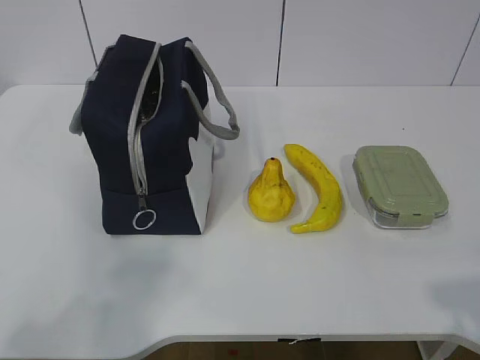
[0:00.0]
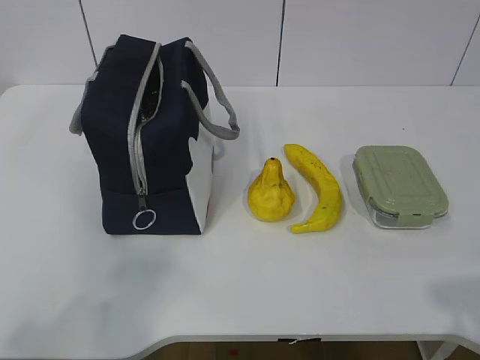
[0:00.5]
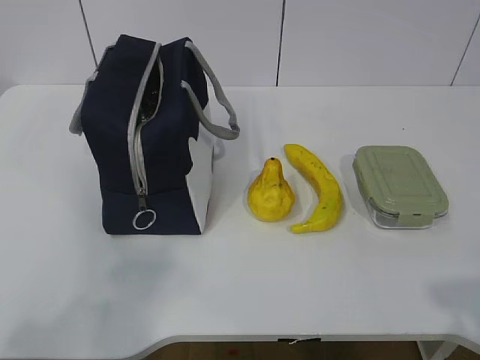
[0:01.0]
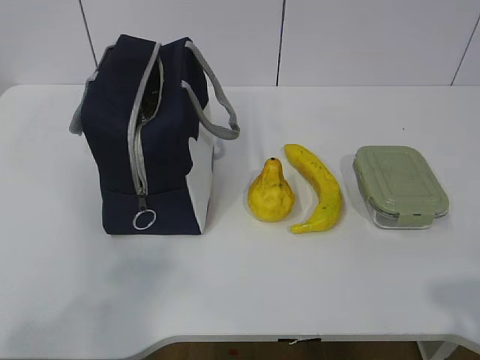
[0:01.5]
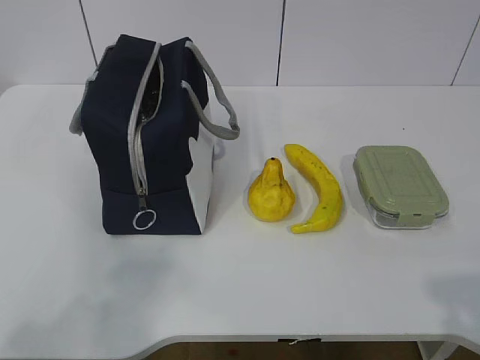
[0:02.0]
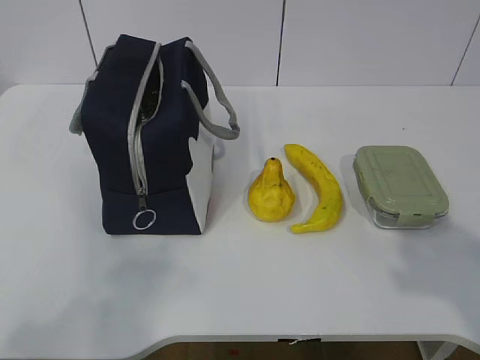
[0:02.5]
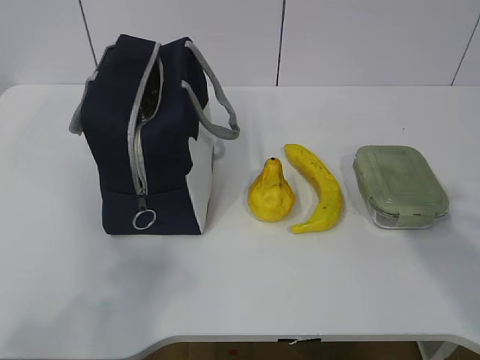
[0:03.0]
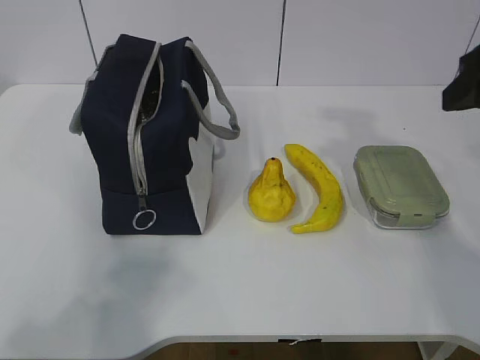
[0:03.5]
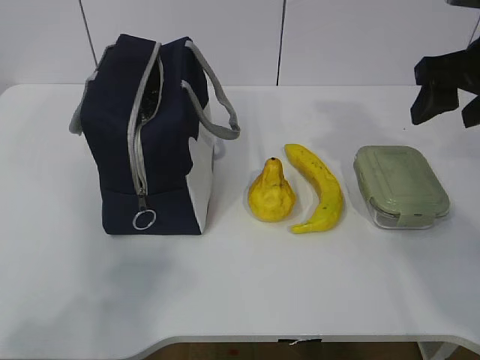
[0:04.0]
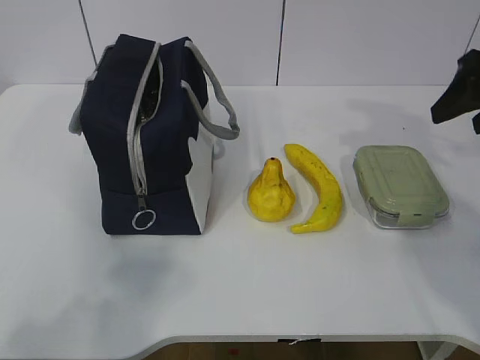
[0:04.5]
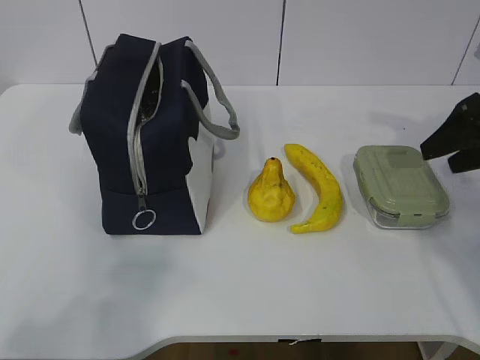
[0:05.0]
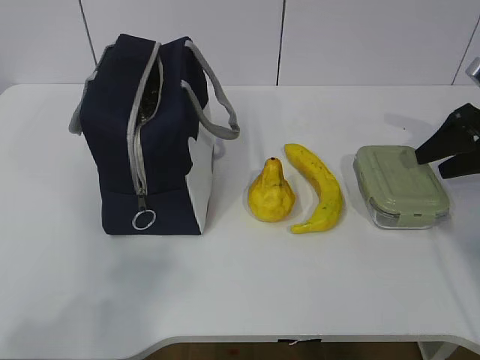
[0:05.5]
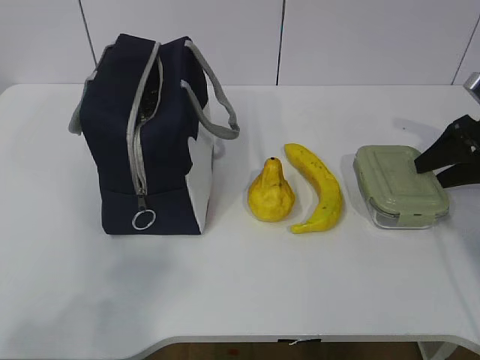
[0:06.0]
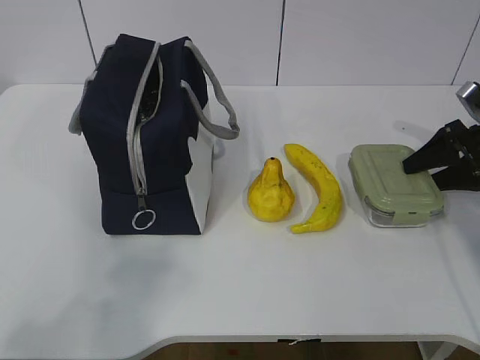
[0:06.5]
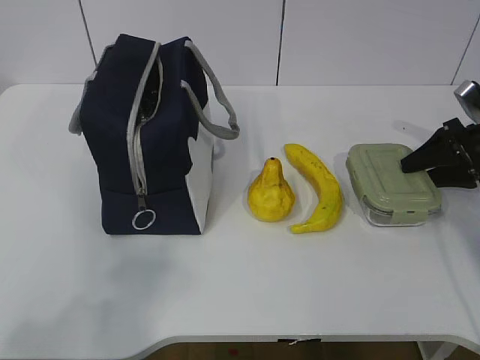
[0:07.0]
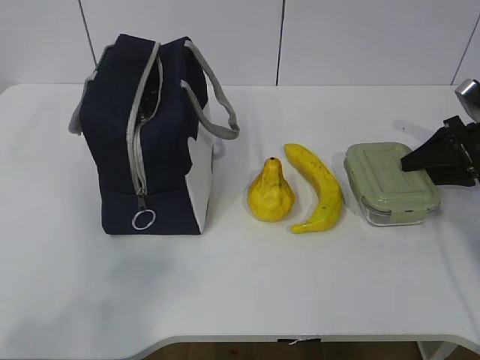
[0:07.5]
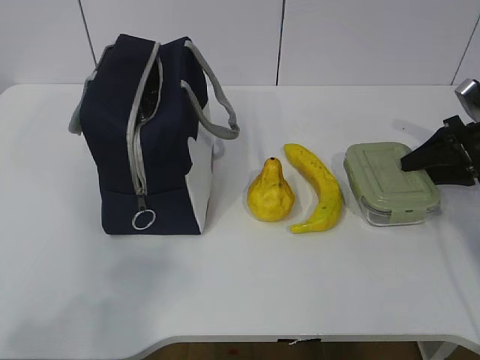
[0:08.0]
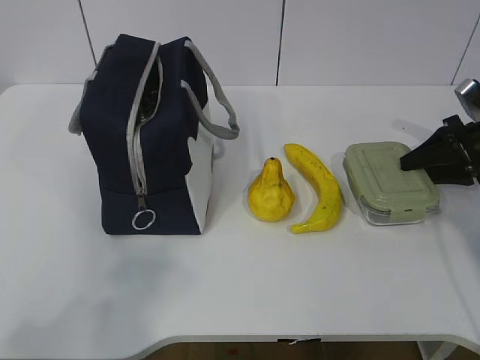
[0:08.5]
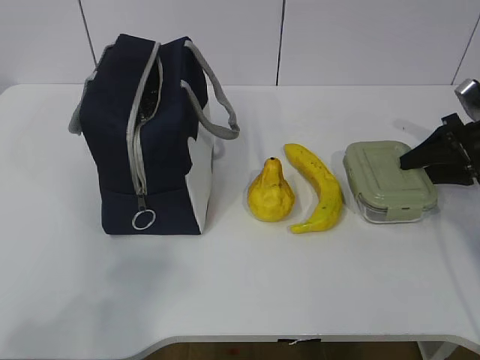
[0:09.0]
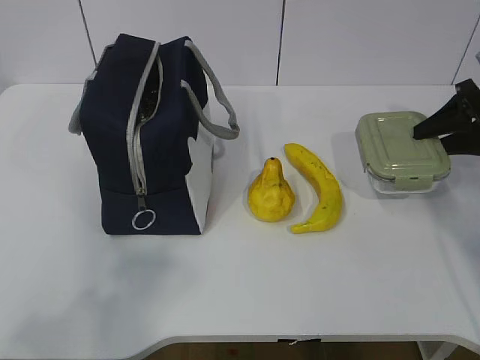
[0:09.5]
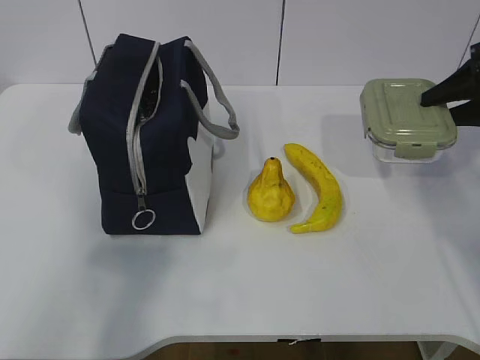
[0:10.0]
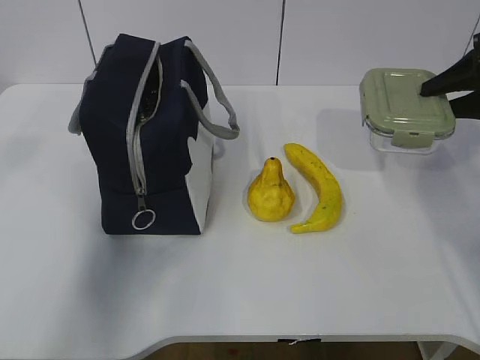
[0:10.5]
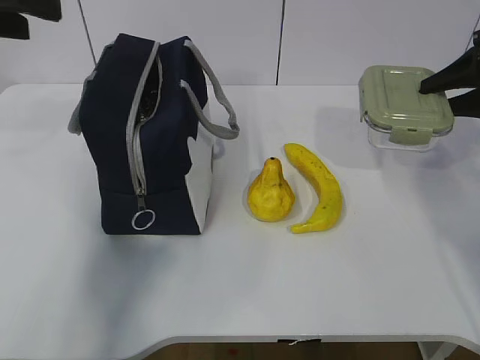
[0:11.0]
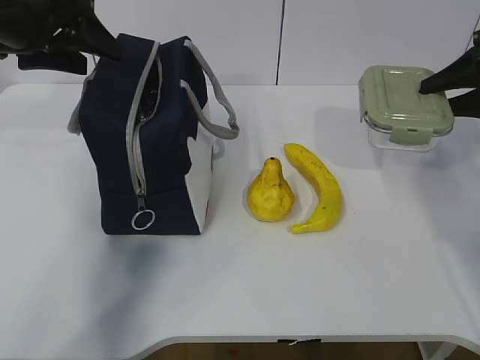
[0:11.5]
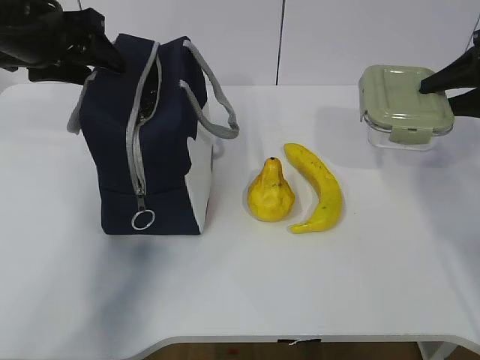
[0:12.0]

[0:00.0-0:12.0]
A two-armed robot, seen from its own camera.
Step, 0:00.0 to 0:07.0: Grab the lunch box with your right hand.
0:02.0 to 0:04.0: The right gripper travels forward by roughly 35 cm.
0:04.0 to 0:06.0: The right gripper is displaced downward, to the right and forward by roughly 20 cm.
0:06.0 to 0:08.0: There are only small adjustments of the grippers.
0:08.0 to 0:10.0: The right gripper shifts approximately 10 cm upward; the left gripper shifts some 5 cm forward.
0:10.0 to 0:12.0: The left gripper is displaced forward by some 35 cm, and opens its fingers.

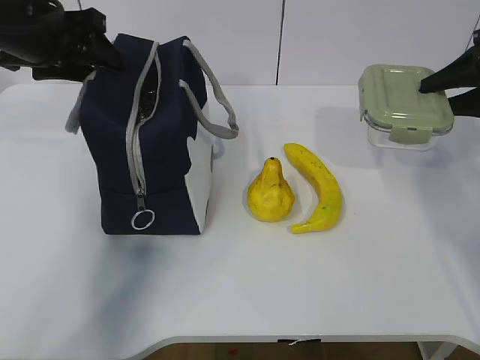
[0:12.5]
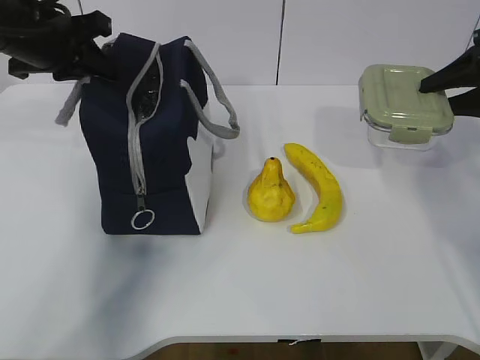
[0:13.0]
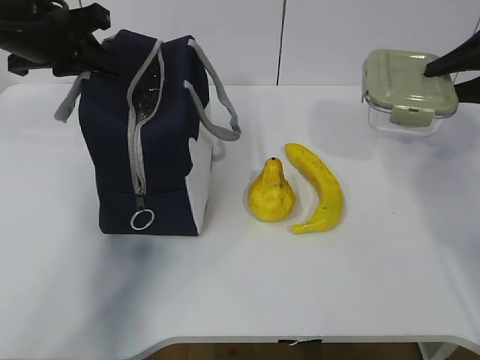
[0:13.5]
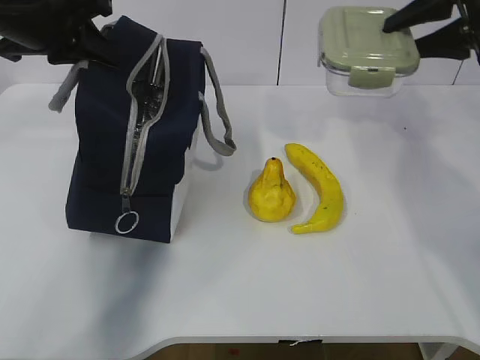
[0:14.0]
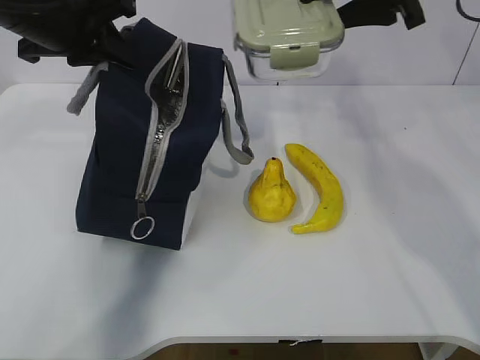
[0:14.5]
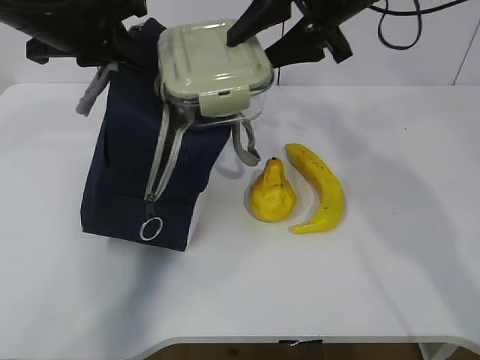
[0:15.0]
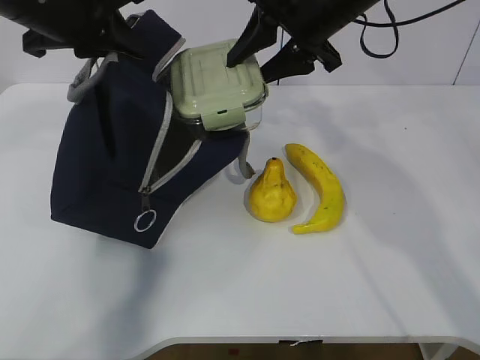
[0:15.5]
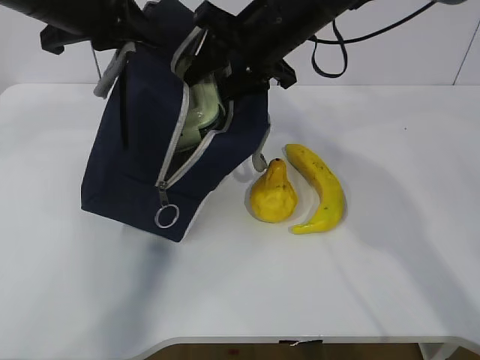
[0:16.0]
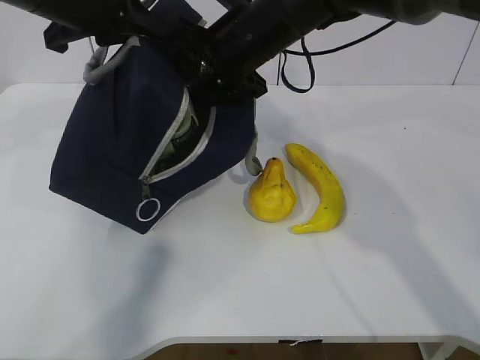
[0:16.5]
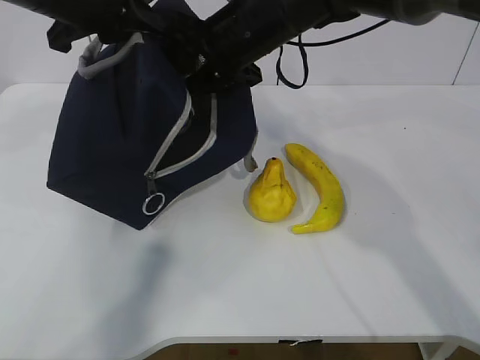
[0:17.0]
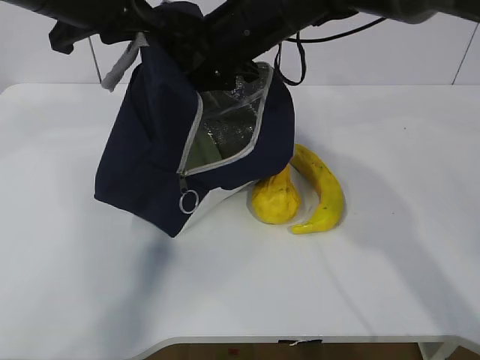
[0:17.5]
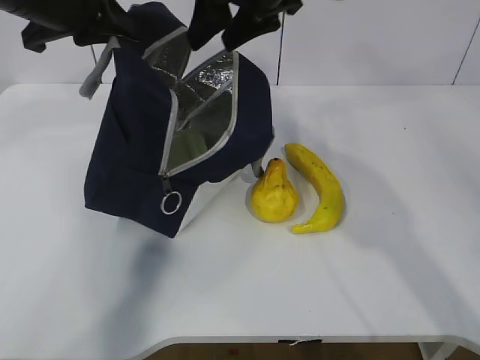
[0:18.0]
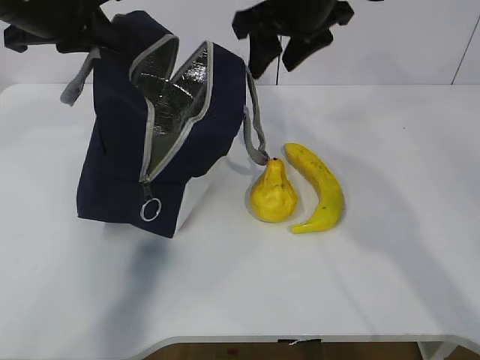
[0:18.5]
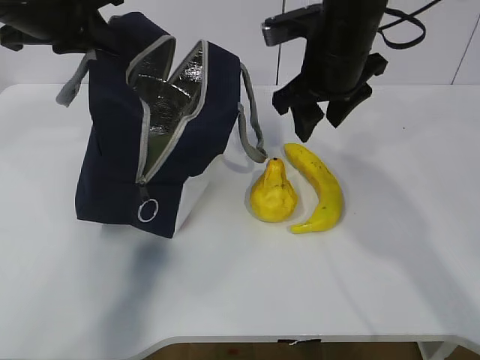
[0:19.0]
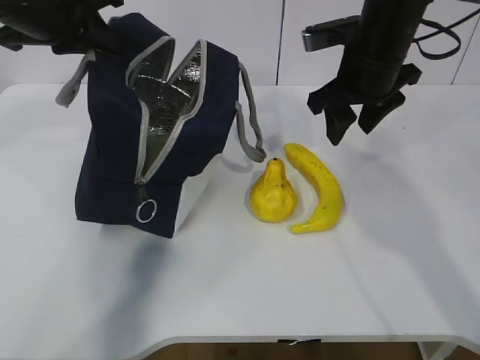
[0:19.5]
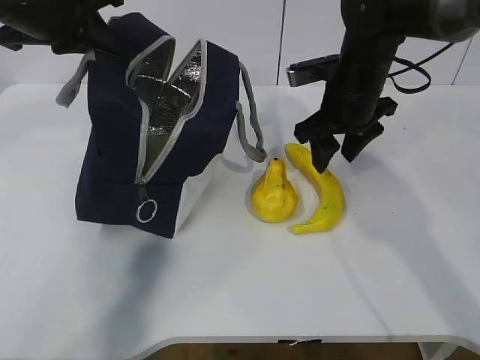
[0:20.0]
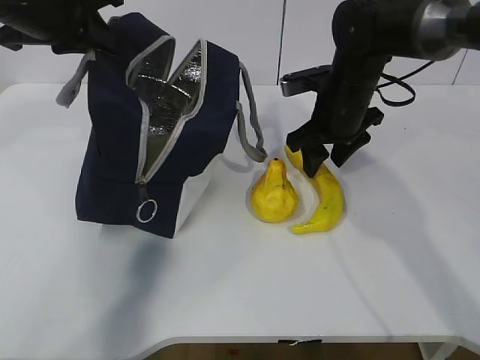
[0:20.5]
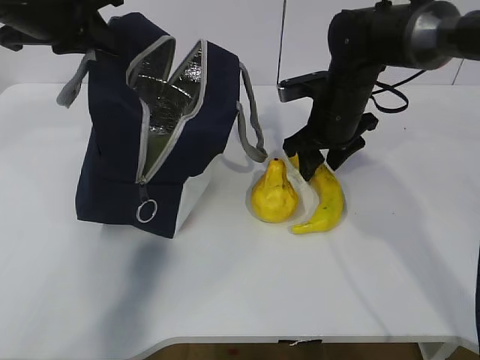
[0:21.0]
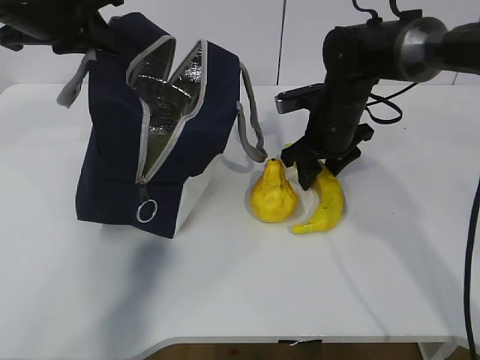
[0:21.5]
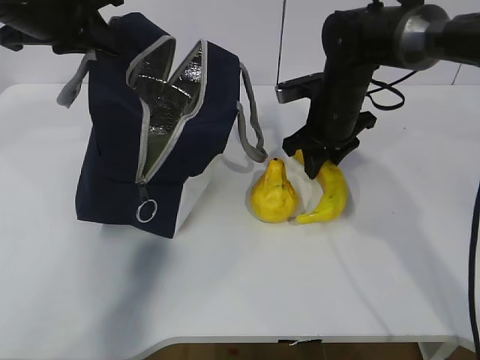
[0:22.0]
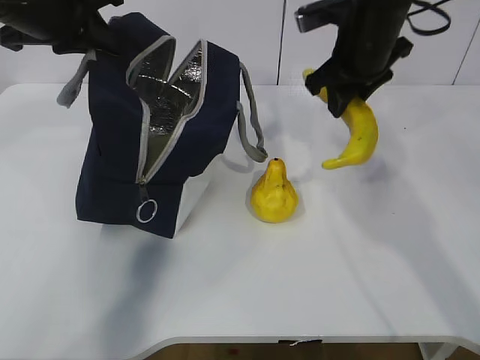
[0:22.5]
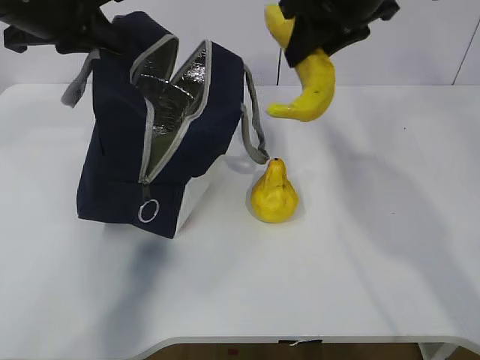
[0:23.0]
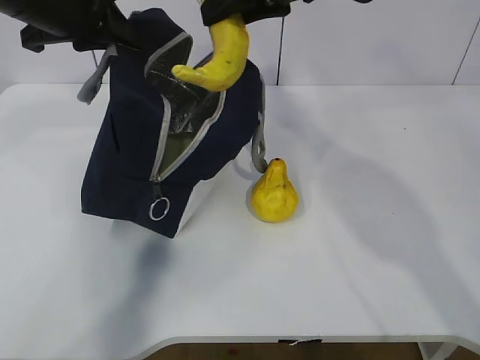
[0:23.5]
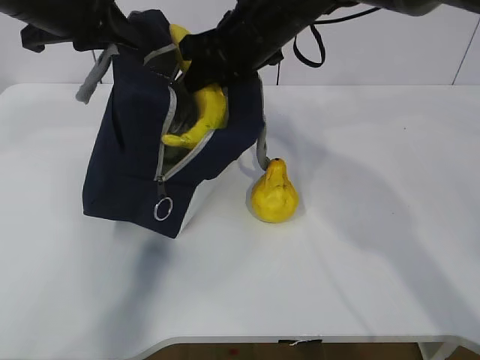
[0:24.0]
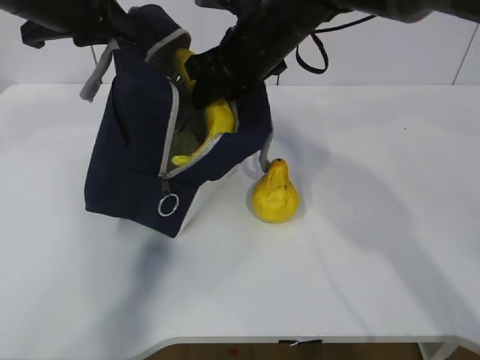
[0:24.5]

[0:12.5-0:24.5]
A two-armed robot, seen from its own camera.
Step, 0:12.5 to 0:14.5: Place it into the bag with your right hand.
Step, 0:15.0 to 0:18.0: Grab the banana with your right hand.
Step, 0:18.5 to 0:20.5: Place it into the bag with your right hand.
Step, 0:21.0 to 0:24.0: Grab the pear with your right hand.
0:12.5 to 0:14.5: The left gripper changes place by some 5 cm, and closes; the right gripper goes approximately 20 cm to the left and upward.
0:14.5 to 0:16.5: The right gripper goes approximately 20 cm to the left and downward.
0:16.5 to 0:18.5: The right gripper shifts roughly 10 cm upward and to the right.
0:18.5 to 0:20.5: The right gripper is displaced downward and to the right by some 15 cm.
0:20.5 to 0:22.5: The right gripper heads upward, covering roughly 10 cm.
0:22.5 to 0:24.5: The right gripper heads to the left, covering roughly 10 cm.

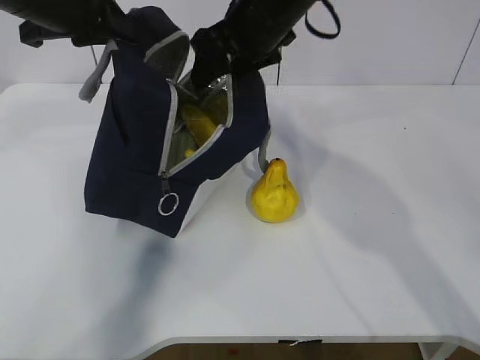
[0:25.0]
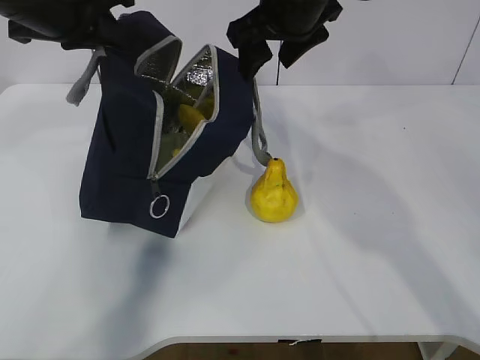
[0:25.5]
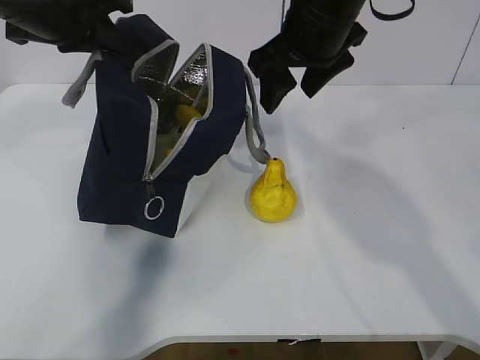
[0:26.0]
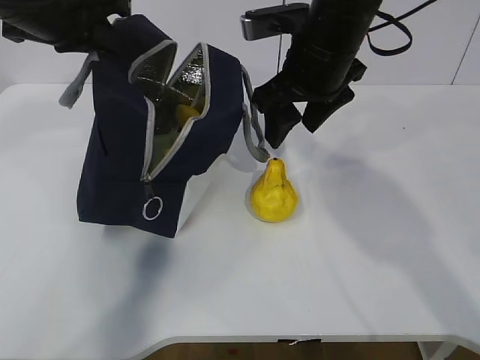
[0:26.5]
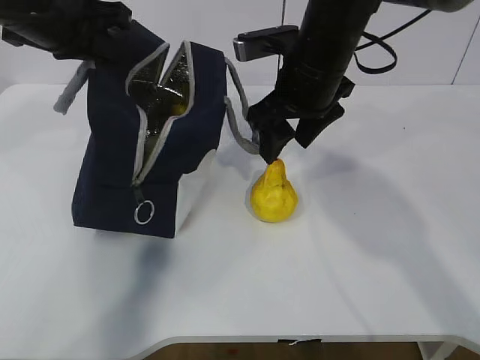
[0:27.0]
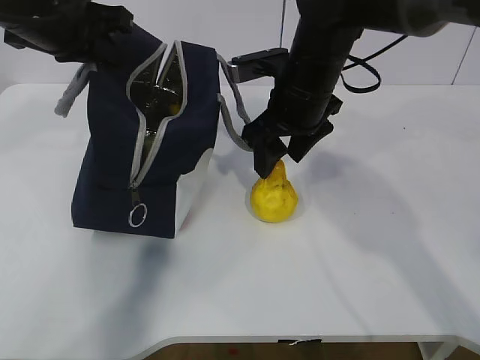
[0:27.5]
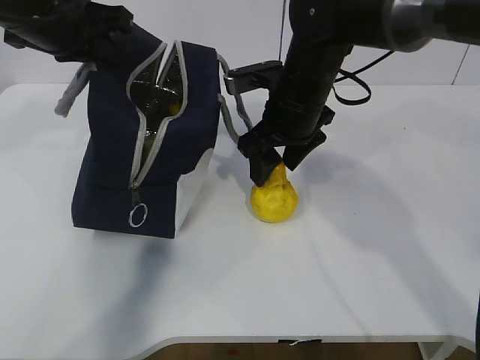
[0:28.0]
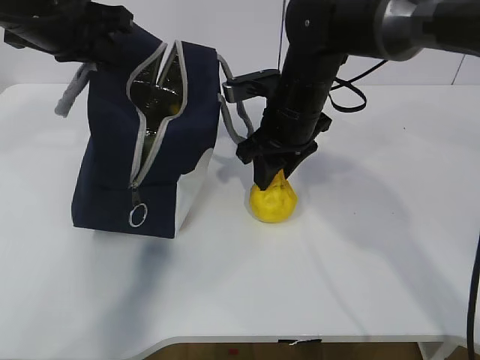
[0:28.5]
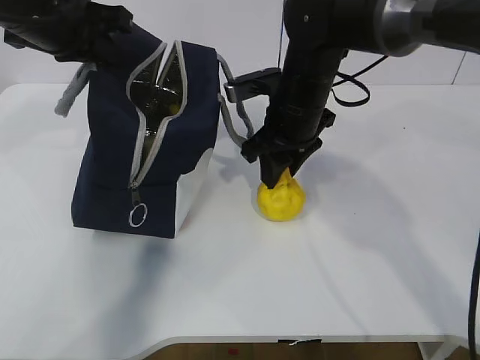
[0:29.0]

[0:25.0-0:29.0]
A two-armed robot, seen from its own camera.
Step, 0:26.5 to 0:27.5: Grab the lunch bag with your right hand.
0:25.0 to 0:27.0: The right gripper shifts by some 5 cm.
0:27.0 to 0:29.0: The right gripper heads downward, covering roughly 5 cm, and closes up.
